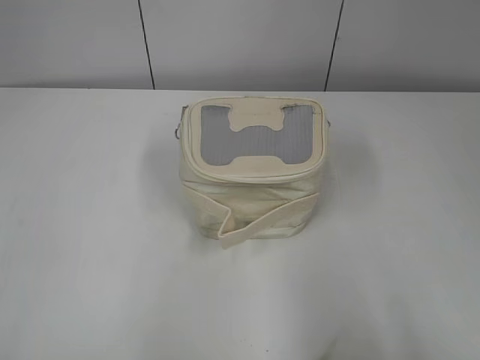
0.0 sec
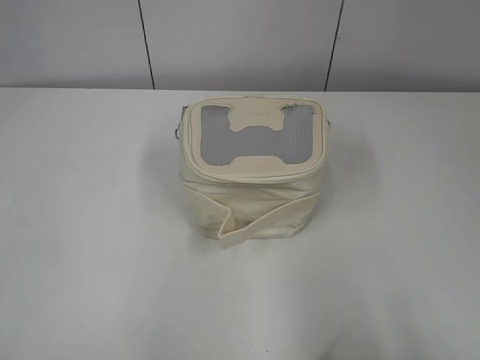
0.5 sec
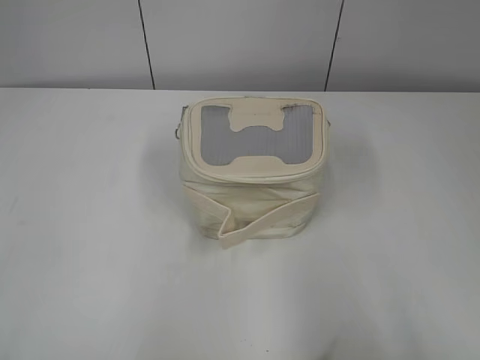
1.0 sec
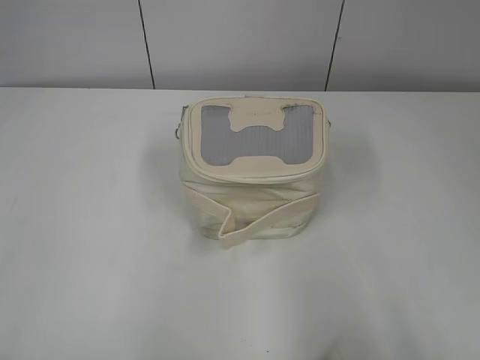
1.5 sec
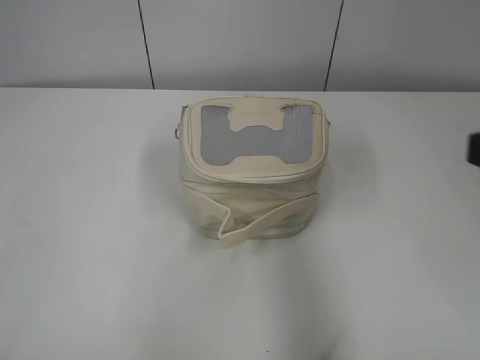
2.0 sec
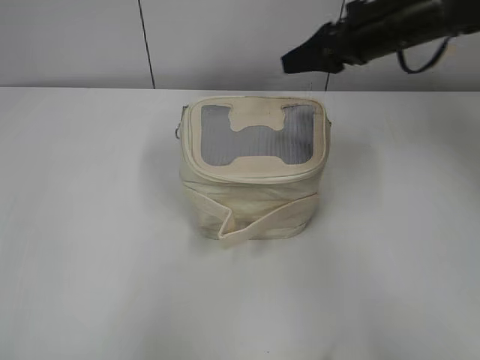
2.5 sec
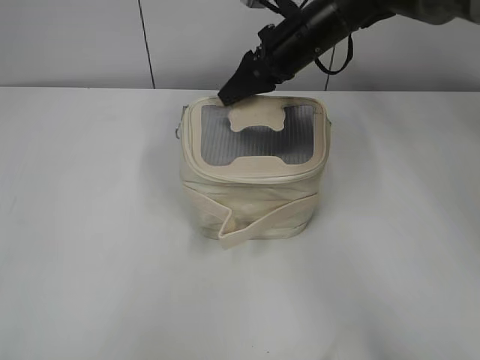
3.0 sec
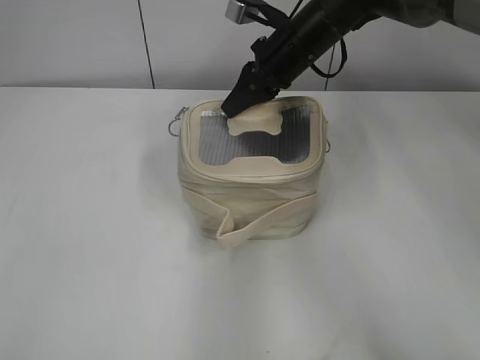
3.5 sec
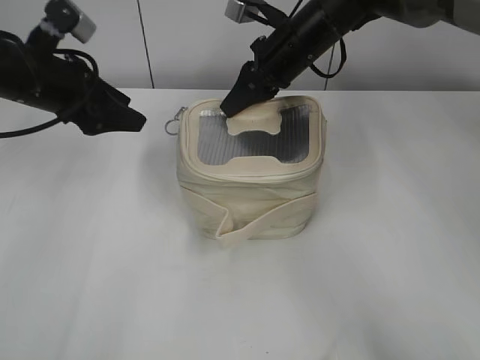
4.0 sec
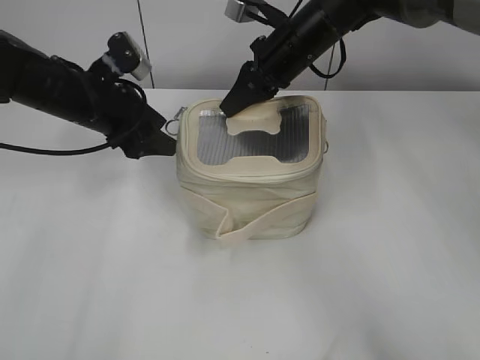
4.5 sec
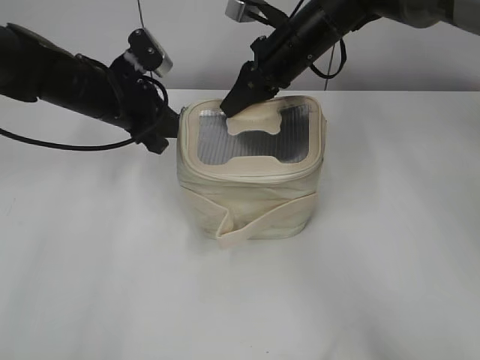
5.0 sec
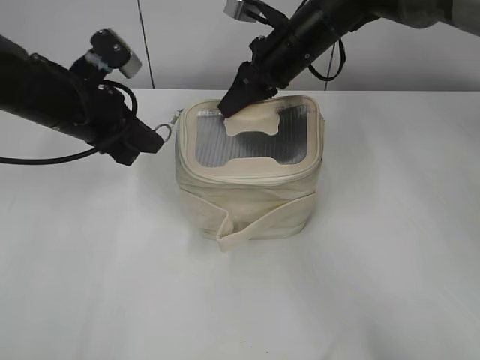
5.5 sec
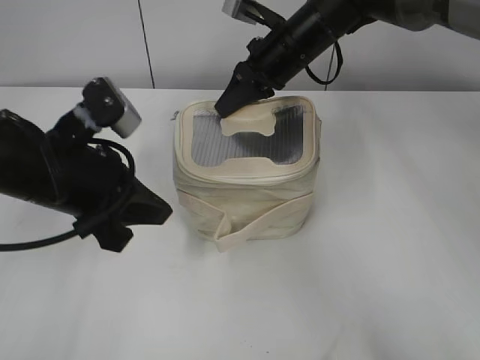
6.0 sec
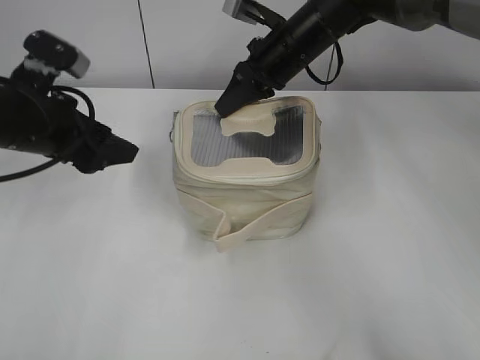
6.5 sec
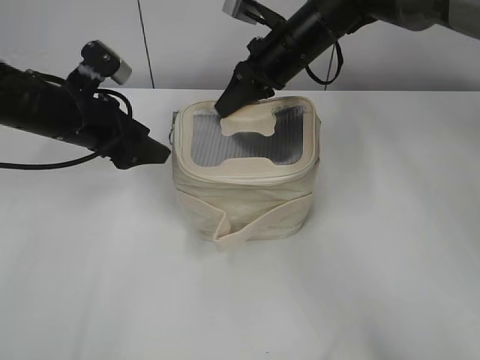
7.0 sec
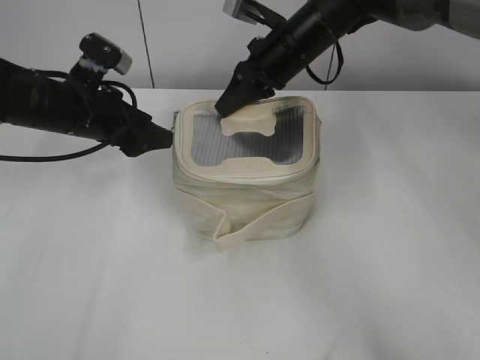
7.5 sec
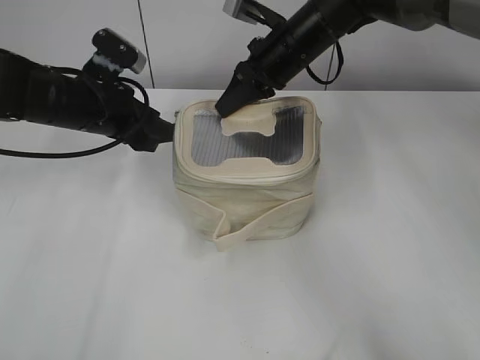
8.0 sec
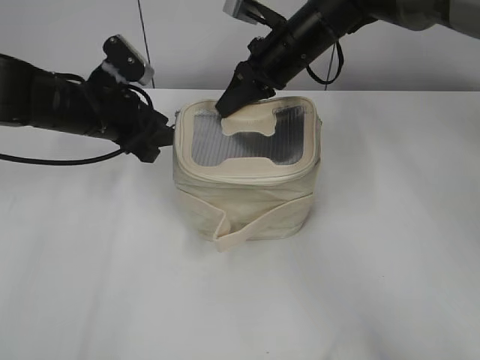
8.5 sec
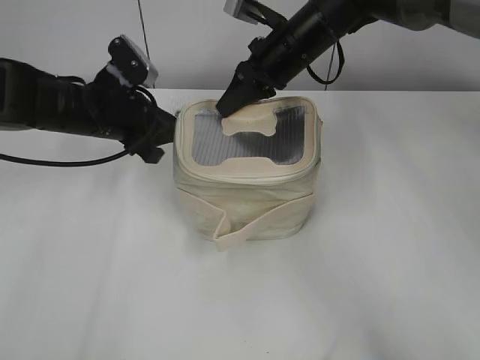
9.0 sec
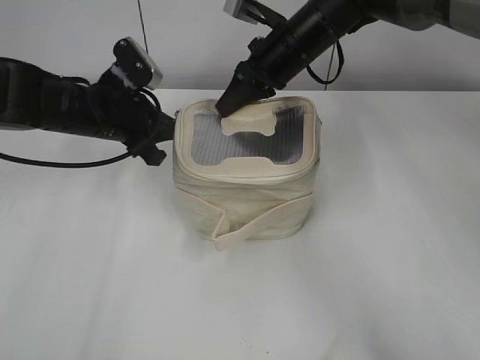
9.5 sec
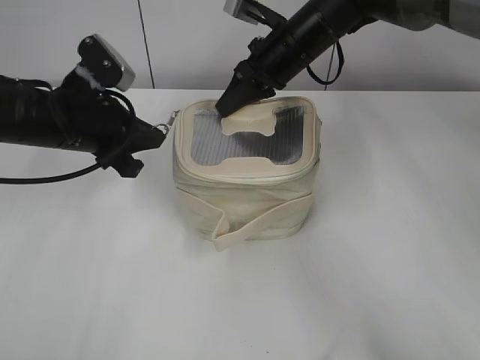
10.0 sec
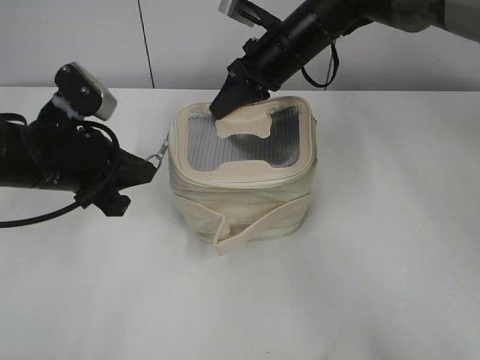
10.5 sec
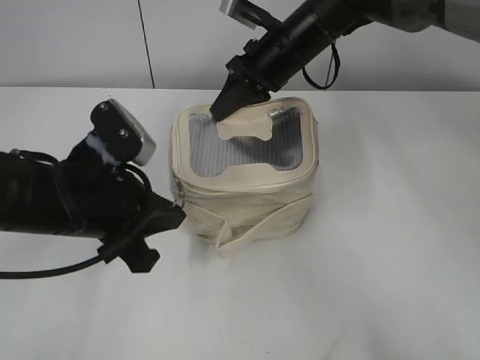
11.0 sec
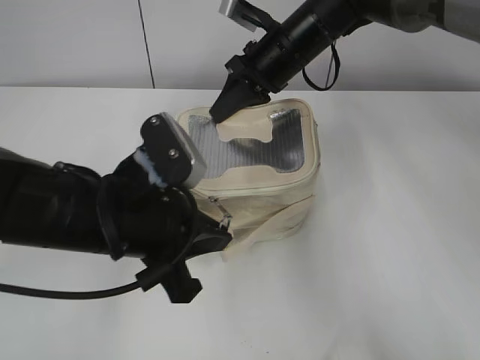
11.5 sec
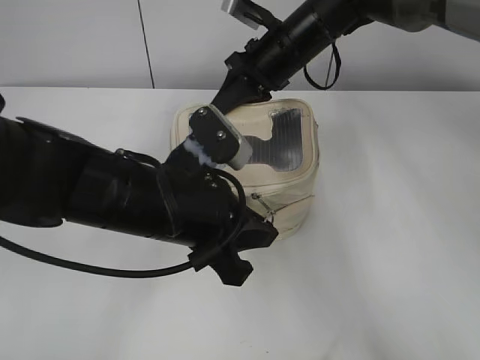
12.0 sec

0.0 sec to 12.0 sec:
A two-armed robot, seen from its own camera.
Step, 0.0 sec to 12.0 sec: Zip up the bag with your left hand.
2.0 sec to 4.0 sec: The left gripper moves forward, about 35 cm. The right gripper moves forward and to the left, roughly 40 cm, and closes.
4.0 sec to 6.0 sec: The left gripper is displaced backward by roughly 10 cm, and closes its fingers.
6.0 sec to 8.0 sec: The left gripper moves forward, about 10 cm, and opens up.
8.0 sec to 10.0 sec: The left gripper closes up.
10.0 sec to 12.0 sec: The left gripper heads backward and to the right, covering approximately 15 cm.

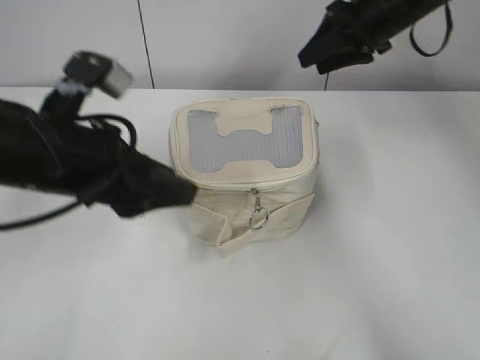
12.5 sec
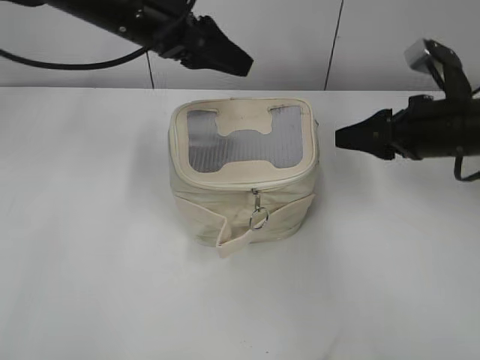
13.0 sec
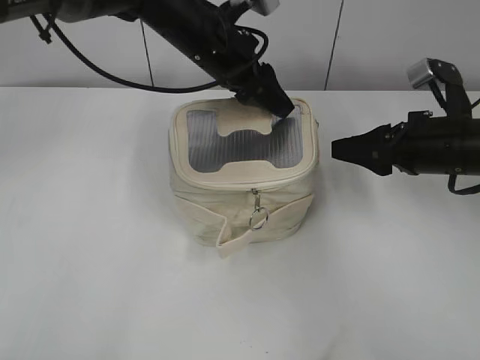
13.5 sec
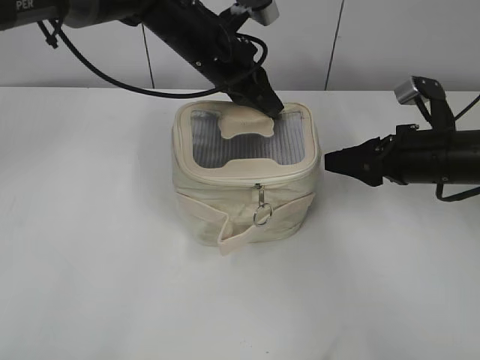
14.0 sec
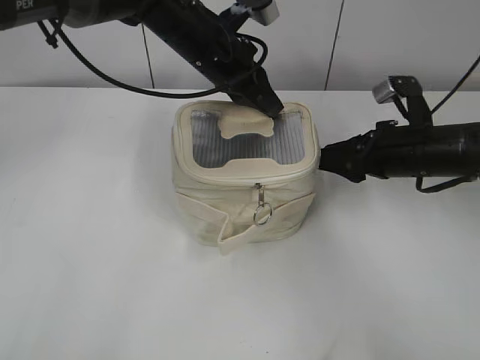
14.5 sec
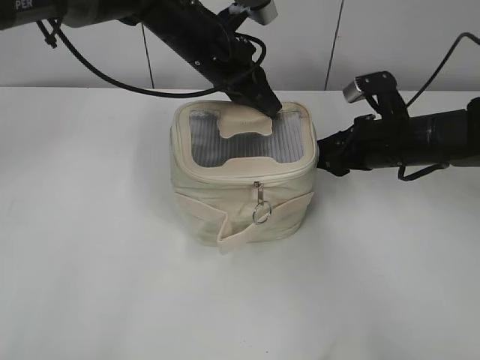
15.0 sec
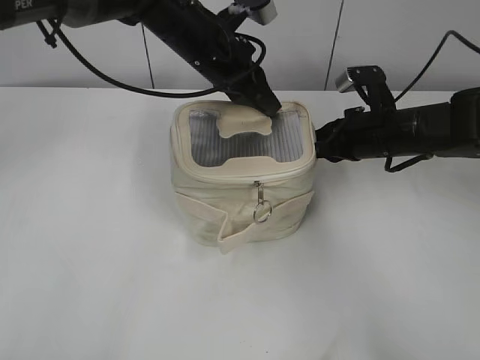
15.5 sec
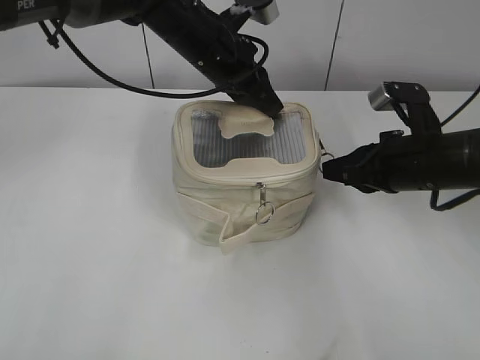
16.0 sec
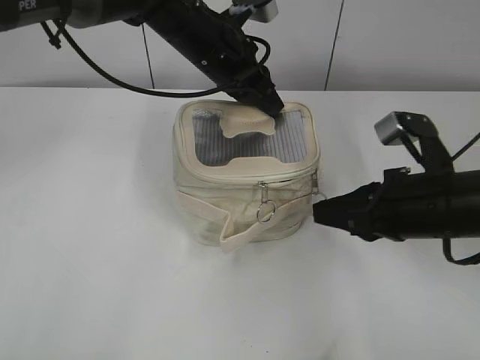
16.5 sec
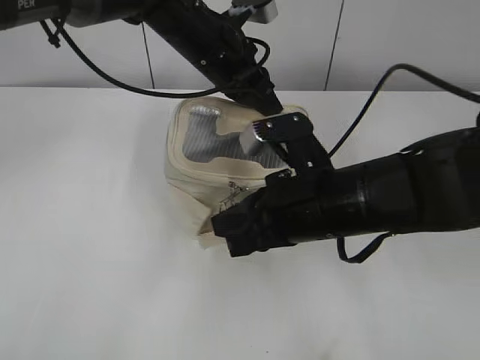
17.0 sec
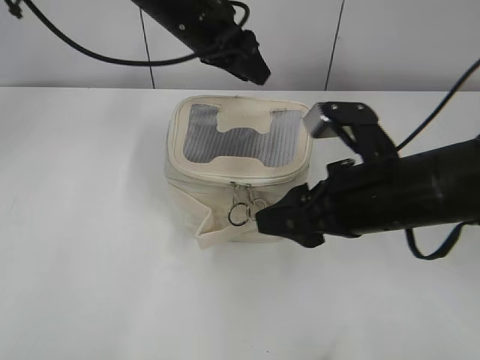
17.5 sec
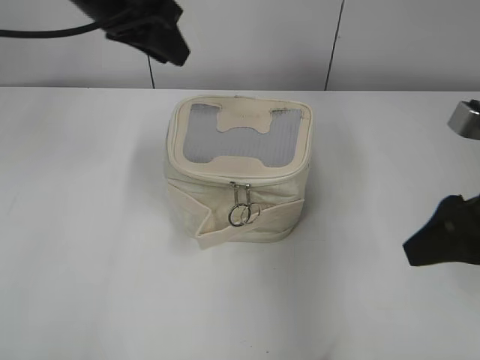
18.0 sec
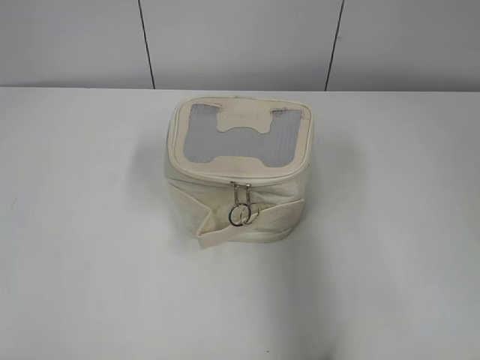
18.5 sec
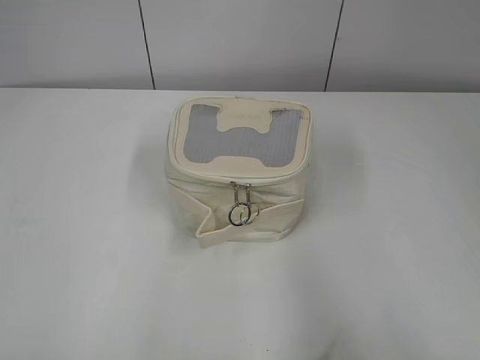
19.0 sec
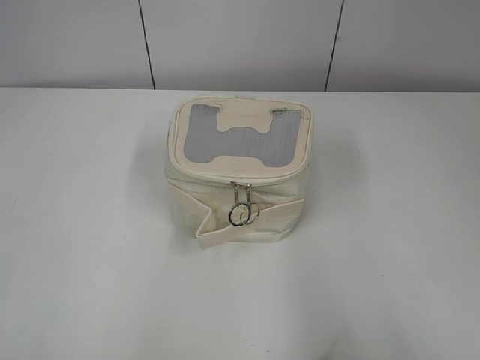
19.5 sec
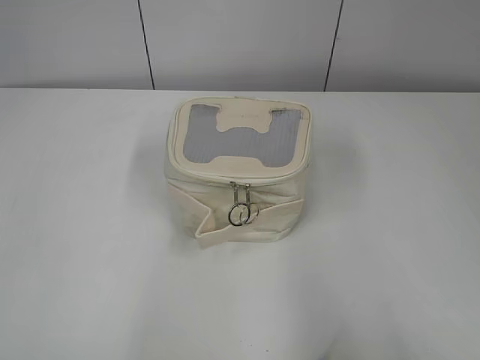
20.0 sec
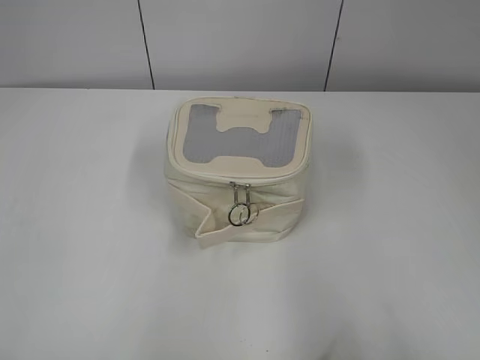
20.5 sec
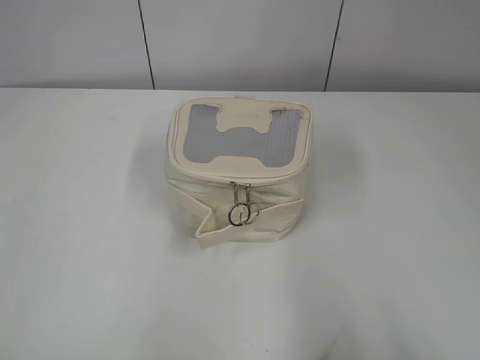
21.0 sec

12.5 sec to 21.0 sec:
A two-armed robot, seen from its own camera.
Step, 12.5 sec to 17.0 sec: Hold the bag with your left hand.
12.5 sec to 14.5 sec: The right gripper travels backward, downward and to the right by approximately 20 cm, while the left gripper shifts about 25 cm forward and to the right, and closes.
14.5 sec to 16.5 sec: The right gripper goes roughly 10 cm backward, and closes its fingers.
16.5 sec to 19.0 sec: The left gripper goes about 50 cm backward and to the left, and opens up. The right gripper goes approximately 25 cm backward, upward and to the right, and opens up.
